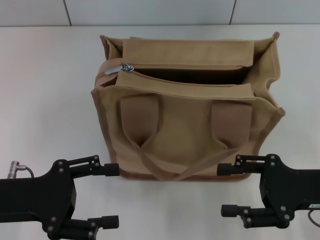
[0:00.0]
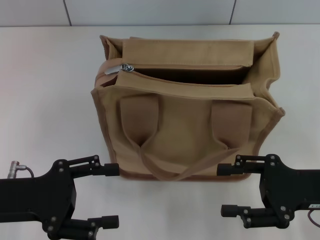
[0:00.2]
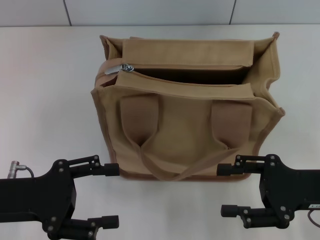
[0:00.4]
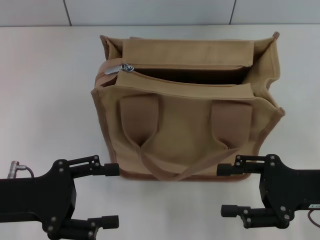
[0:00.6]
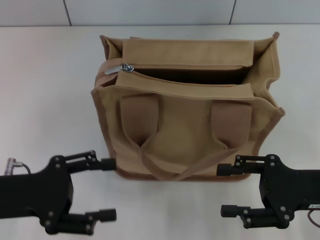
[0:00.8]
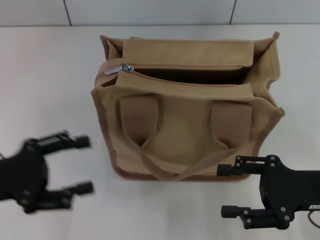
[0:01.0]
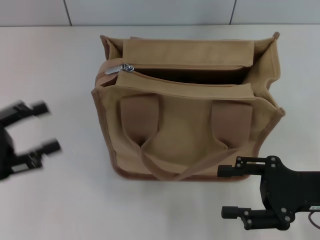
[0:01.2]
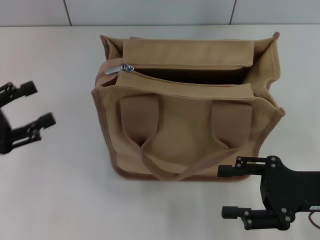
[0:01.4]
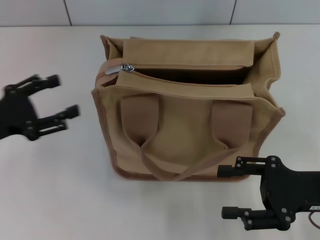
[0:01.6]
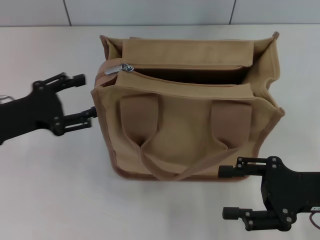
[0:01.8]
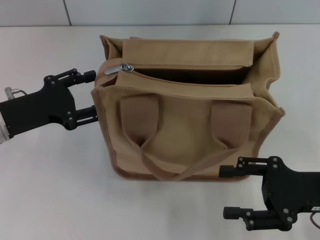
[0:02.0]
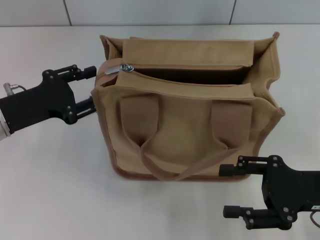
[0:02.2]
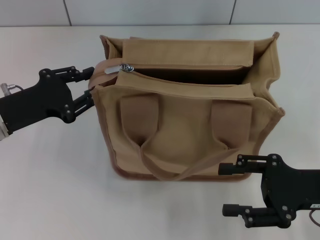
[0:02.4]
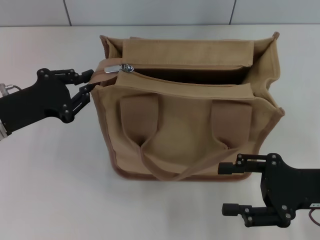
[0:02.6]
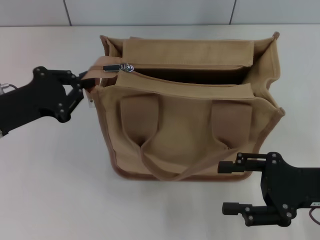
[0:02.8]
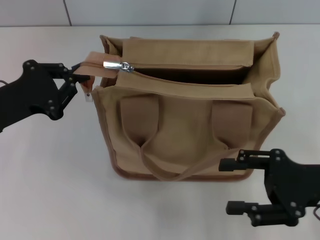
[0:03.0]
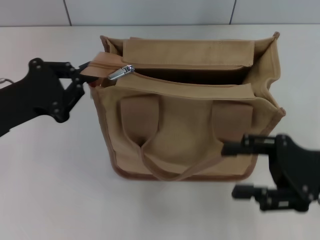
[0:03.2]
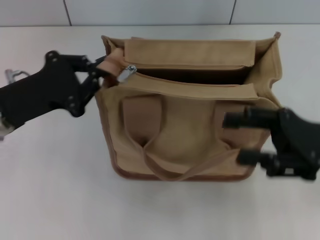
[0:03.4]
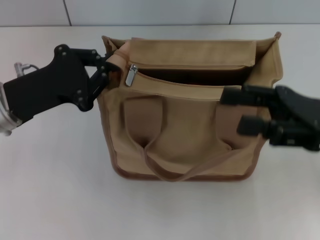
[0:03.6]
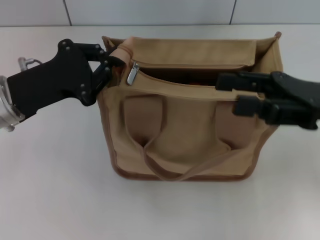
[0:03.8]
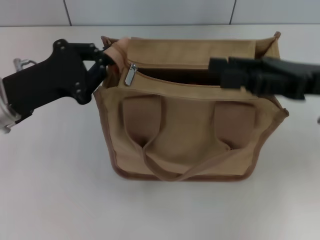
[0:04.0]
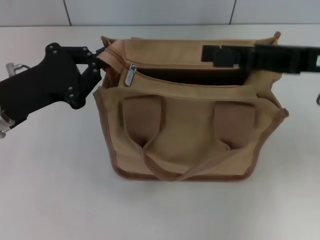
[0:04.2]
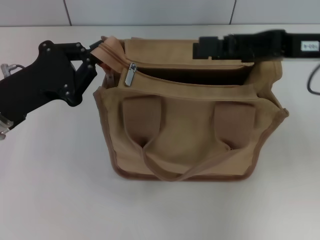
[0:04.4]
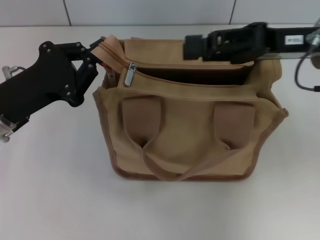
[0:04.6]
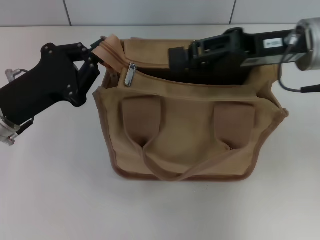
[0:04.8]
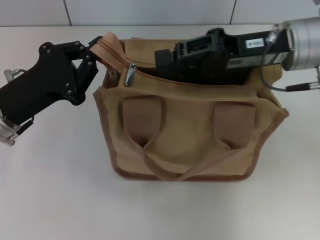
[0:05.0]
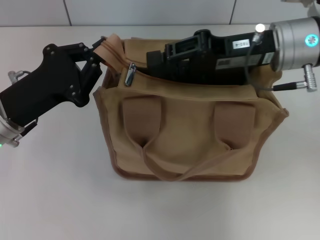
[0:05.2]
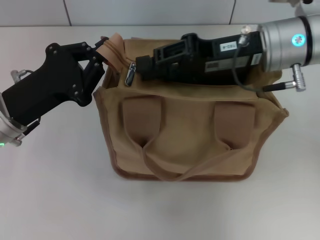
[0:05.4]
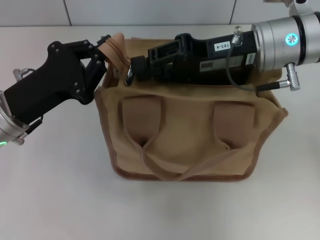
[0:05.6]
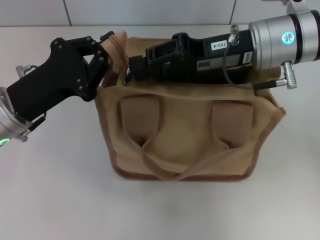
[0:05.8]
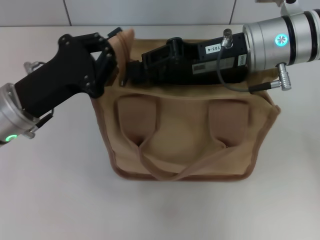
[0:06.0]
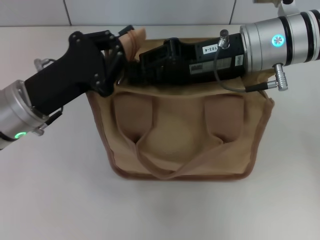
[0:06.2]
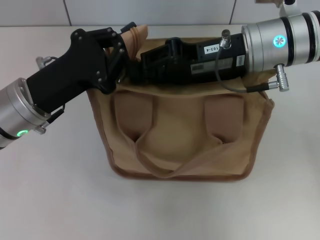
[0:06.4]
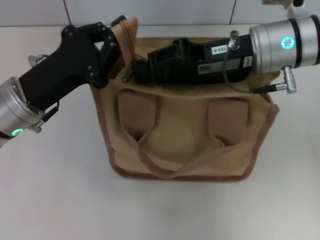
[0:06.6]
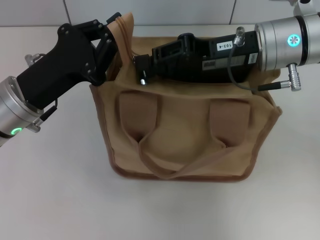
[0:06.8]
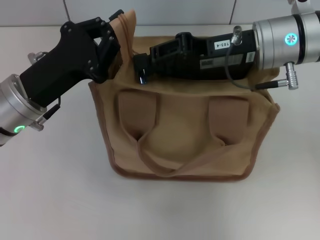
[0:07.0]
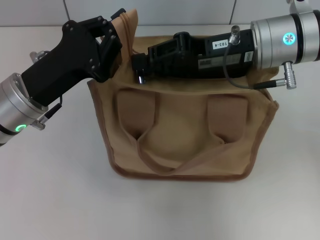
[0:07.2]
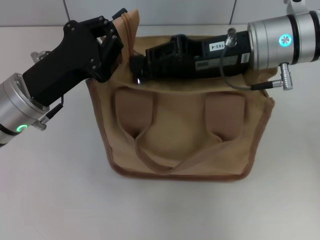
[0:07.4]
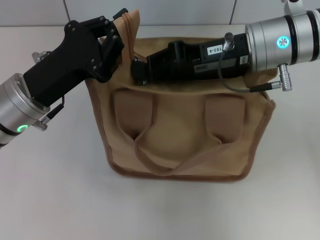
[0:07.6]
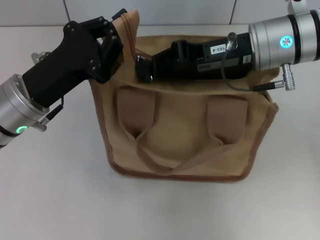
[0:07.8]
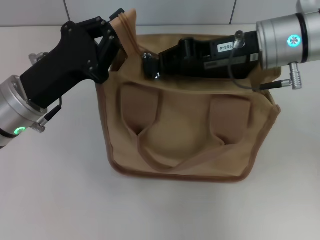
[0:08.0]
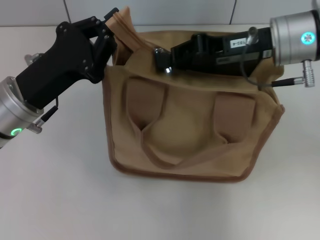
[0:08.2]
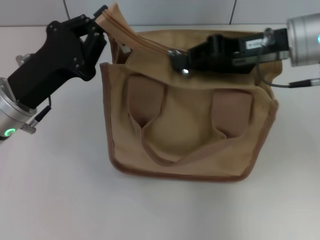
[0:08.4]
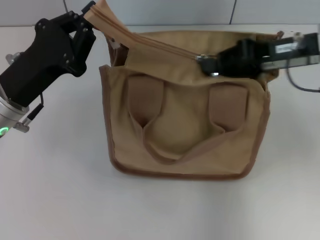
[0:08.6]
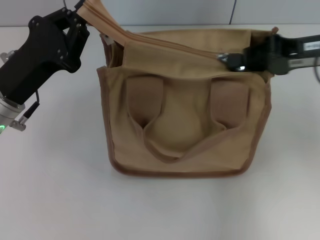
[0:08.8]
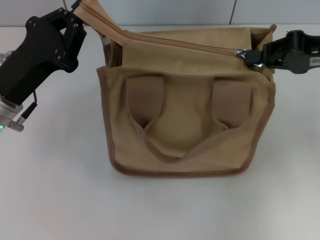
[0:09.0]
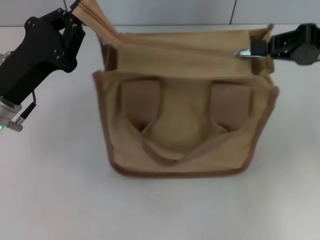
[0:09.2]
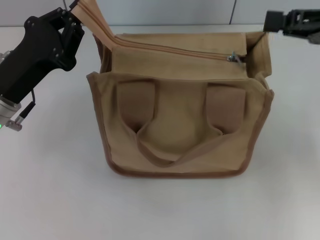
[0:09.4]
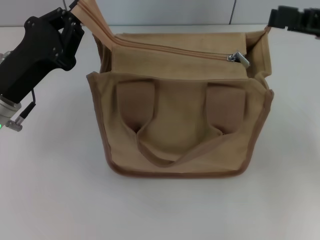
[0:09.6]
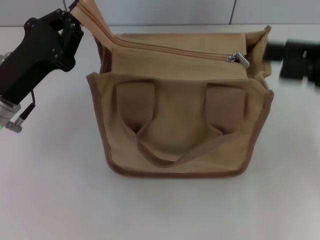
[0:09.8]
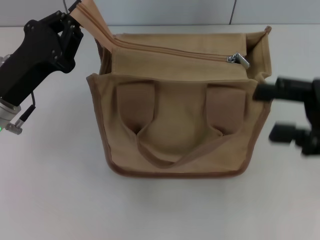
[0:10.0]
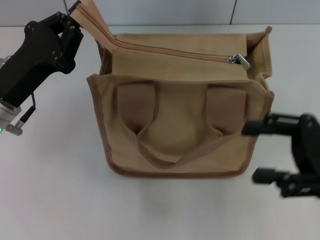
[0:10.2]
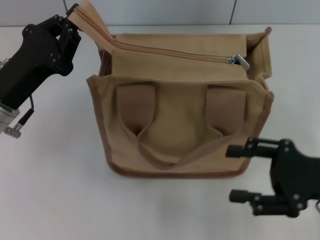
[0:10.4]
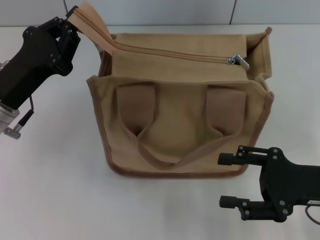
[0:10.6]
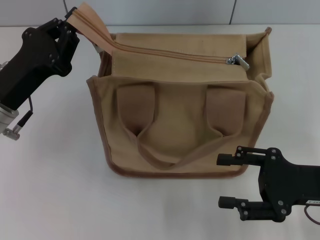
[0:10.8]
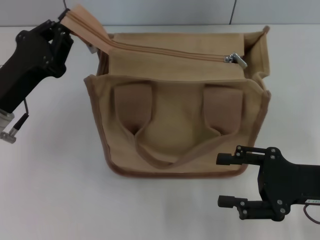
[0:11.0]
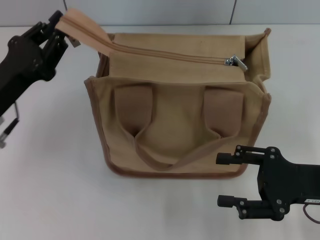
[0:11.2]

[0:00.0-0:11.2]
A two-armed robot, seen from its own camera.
Step, 0:00.0 to 0:09.2: Pull up the zipper with your right hand.
0:00.0 to 0:01.6: The left gripper goes some 5 cm forward.
0:01.6 to 0:03.2: The left gripper closes.
0:03.2 to 0:04.8: The right gripper shifts approximately 15 cm forward, upward and to the left, and closes up.
0:04.8 to 0:06.4: The right gripper shifts some 5 cm to the left.
0:06.4 to 0:08.0: The right gripper closes up.
0:08.0 to 0:09.6: The right gripper heads to the right and backward, covering approximately 15 cm.
0:09.6 to 0:11.2: The right gripper is displaced downward and backward by roughly 15 cm, and opens.

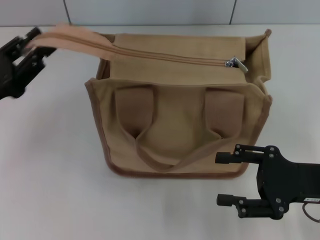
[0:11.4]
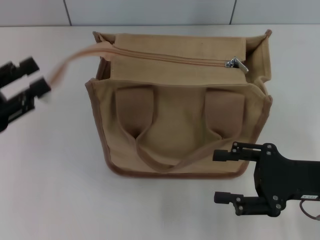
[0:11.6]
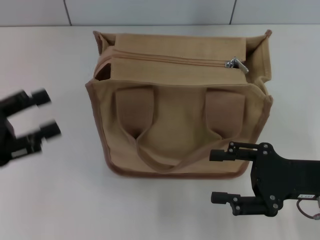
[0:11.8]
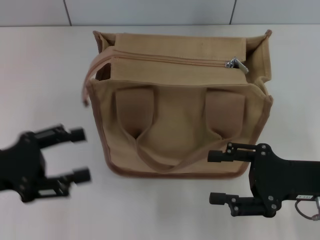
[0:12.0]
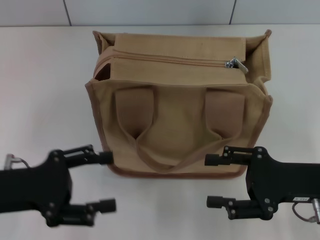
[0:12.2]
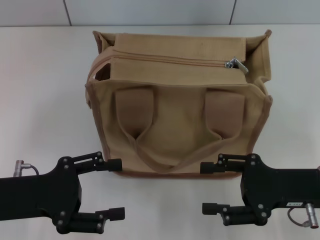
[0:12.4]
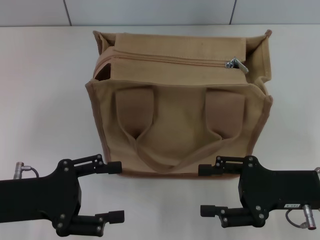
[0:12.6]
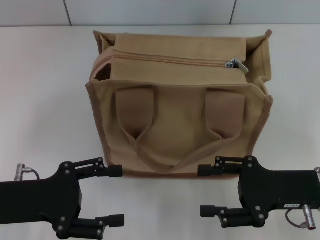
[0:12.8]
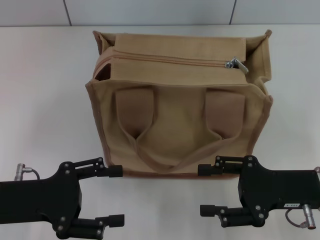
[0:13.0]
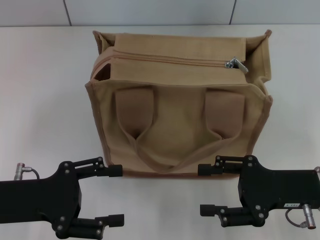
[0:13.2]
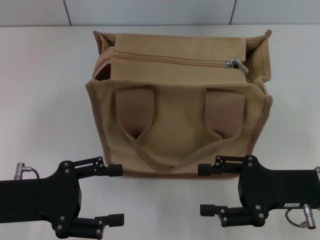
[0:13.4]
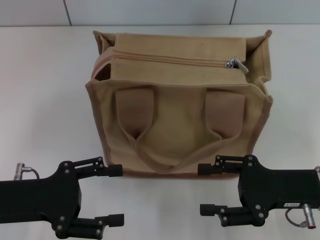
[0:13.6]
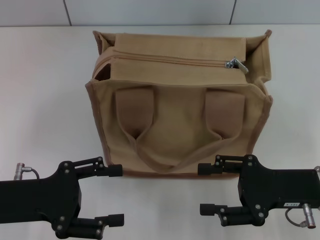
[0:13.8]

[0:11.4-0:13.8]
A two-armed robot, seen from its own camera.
0:11.4 to 0:12.6: The left gripper shifts by approximately 5 cm, and opens.
0:12.6 to 0:13.8: Neither gripper changes place.

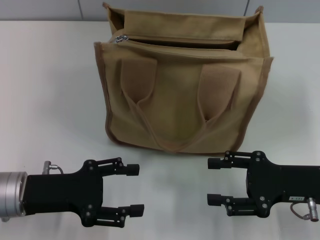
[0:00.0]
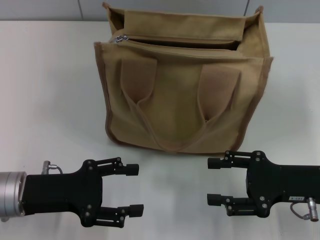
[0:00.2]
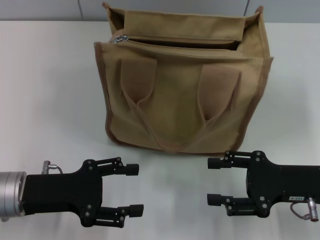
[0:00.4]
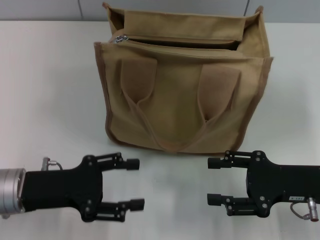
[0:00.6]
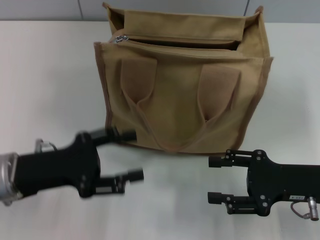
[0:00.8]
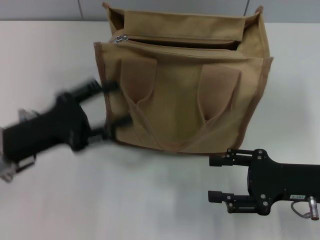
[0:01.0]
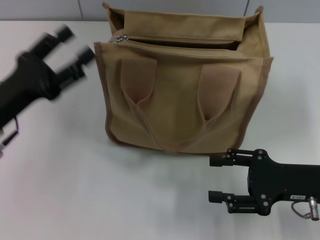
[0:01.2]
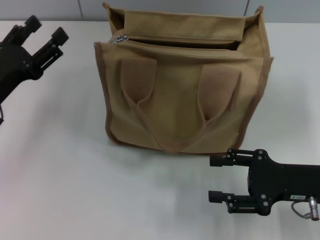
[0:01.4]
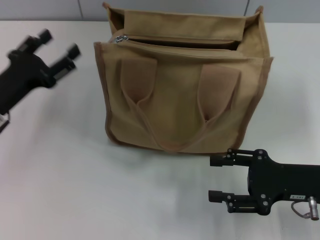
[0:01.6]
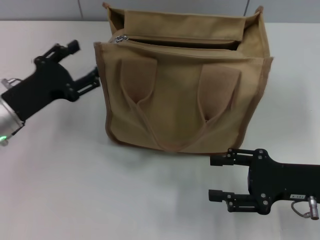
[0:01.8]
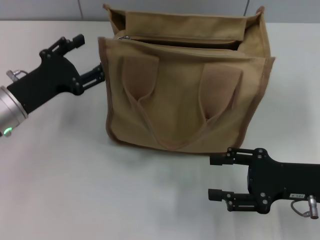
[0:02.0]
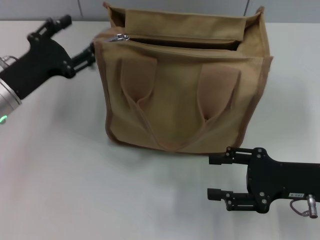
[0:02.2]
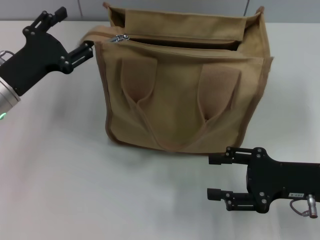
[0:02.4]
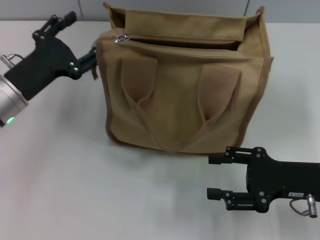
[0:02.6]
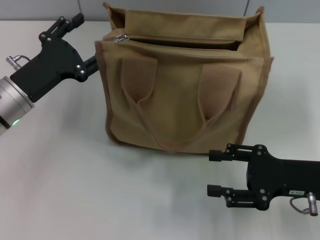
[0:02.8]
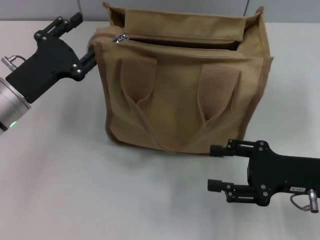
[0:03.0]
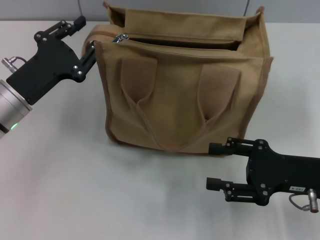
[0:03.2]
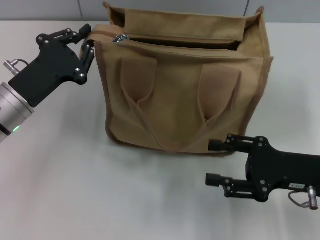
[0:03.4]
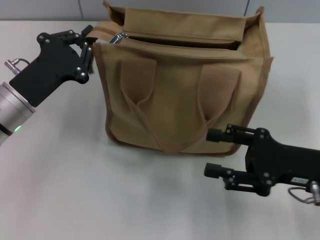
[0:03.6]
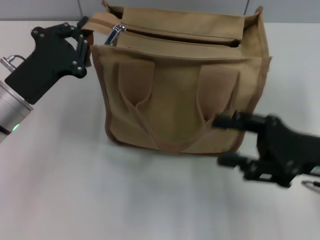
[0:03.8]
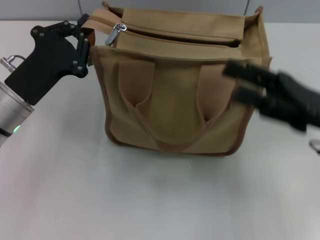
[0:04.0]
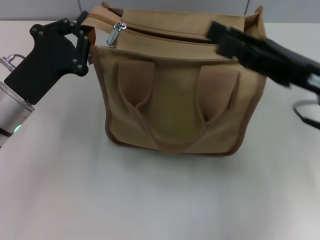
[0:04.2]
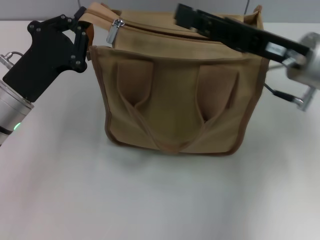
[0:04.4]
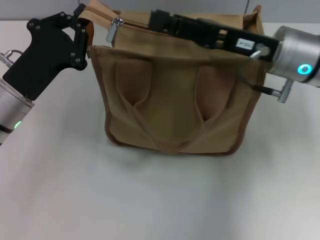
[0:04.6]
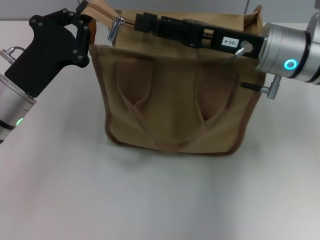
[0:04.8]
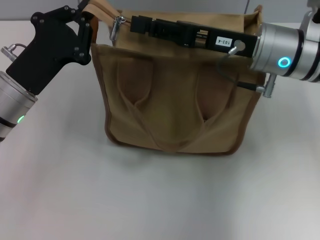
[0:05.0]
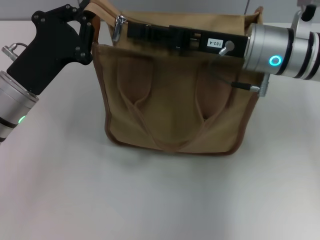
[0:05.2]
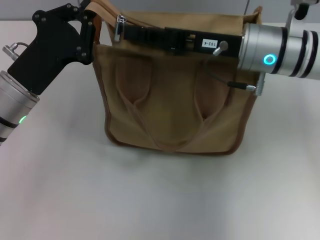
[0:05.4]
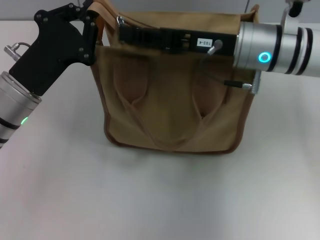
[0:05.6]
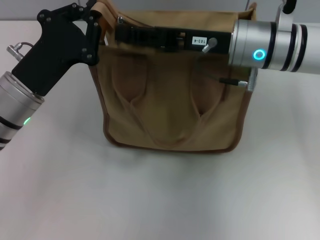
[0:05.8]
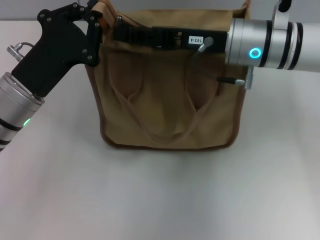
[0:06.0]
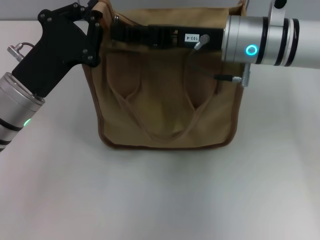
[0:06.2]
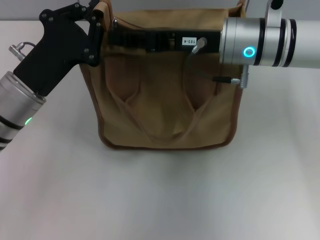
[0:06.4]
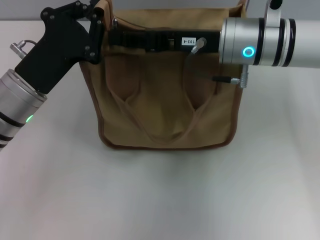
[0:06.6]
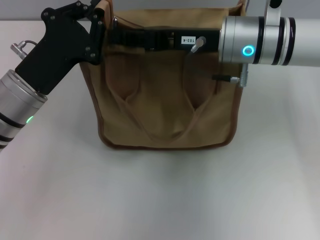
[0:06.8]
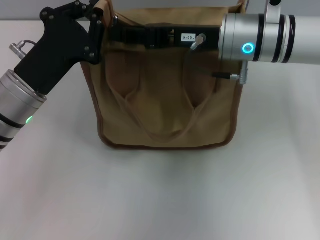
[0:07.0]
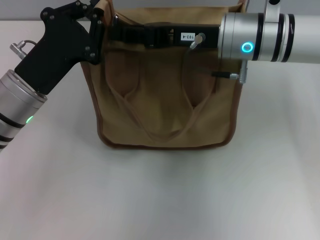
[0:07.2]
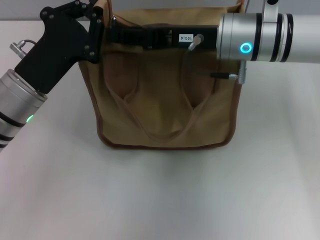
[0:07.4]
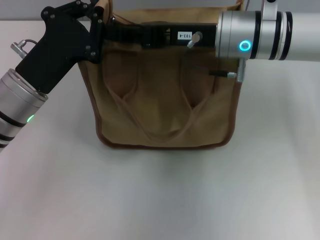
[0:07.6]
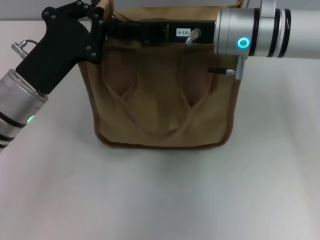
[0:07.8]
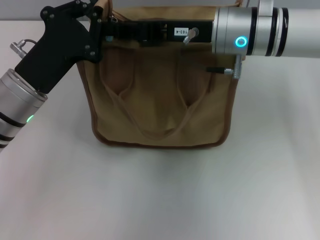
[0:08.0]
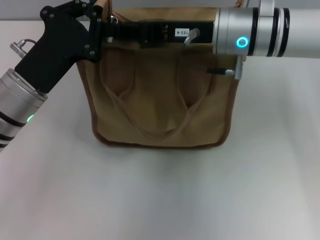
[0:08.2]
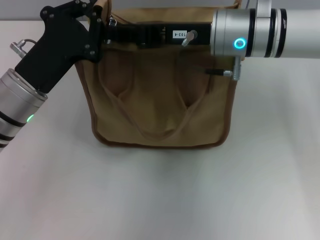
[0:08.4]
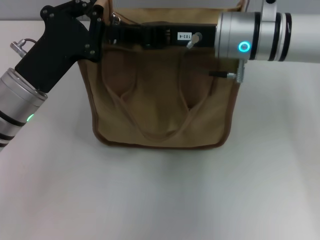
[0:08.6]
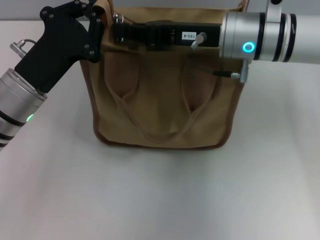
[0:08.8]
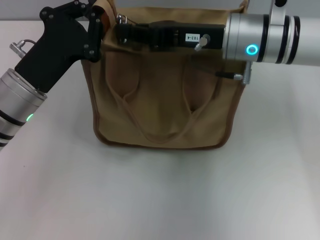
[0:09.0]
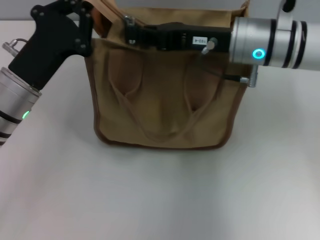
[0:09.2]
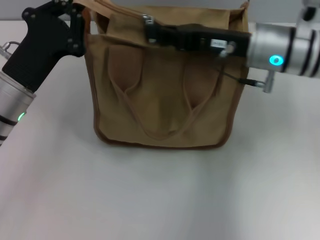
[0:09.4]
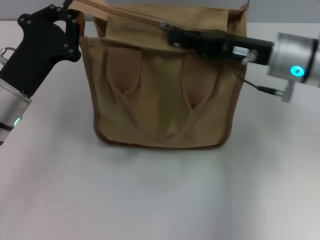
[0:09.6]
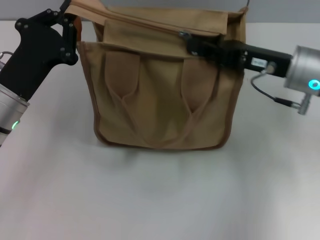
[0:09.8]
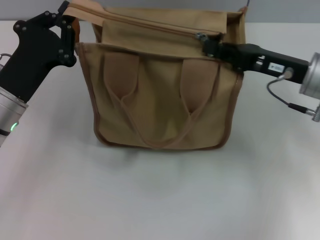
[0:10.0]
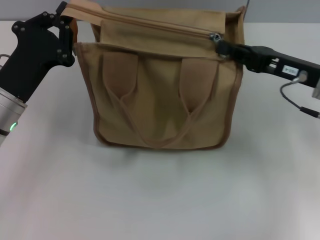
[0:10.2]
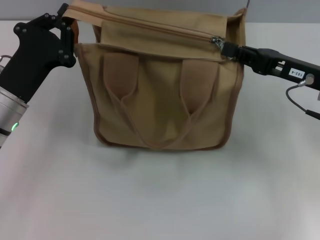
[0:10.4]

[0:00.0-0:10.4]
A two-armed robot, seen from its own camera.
0:00.0 to 0:01.4: The left gripper goes some 5 cm forward.
0:01.4 to 0:03.0: The left gripper shifts by about 5 cm.
0:03.0 to 0:04.4: The right gripper travels forward, upward and to the left by roughly 15 cm; the left gripper closes up.
0:04.4 to 0:06.0: The right gripper moves to the left, roughly 5 cm, and closes its fingers.
0:06.0 to 0:07.4: Both grippers stay about where they are.
0:07.4 to 0:09.0: The two grippers keep their place.
0:09.0 to 0:10.4: The right gripper goes about 15 cm to the right and backward.
